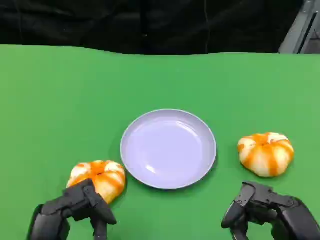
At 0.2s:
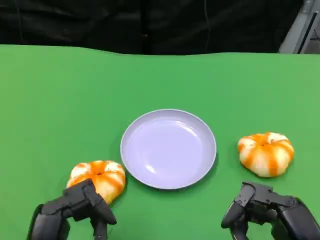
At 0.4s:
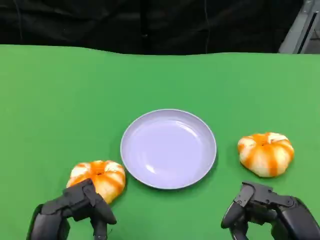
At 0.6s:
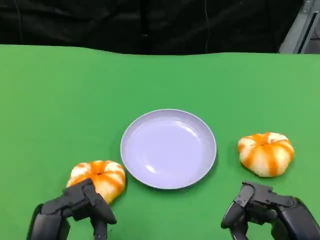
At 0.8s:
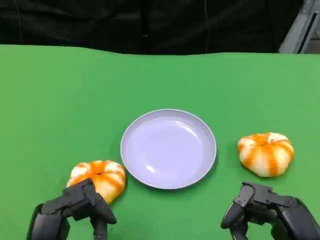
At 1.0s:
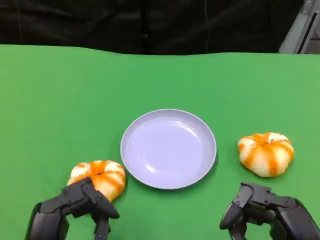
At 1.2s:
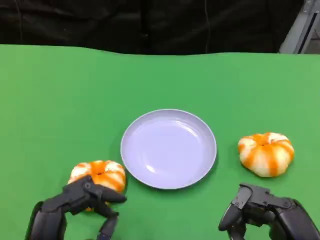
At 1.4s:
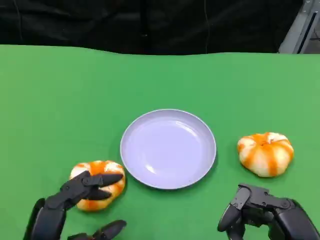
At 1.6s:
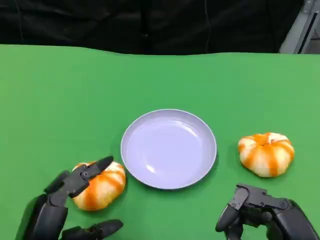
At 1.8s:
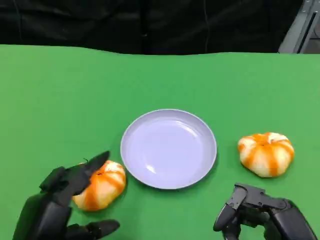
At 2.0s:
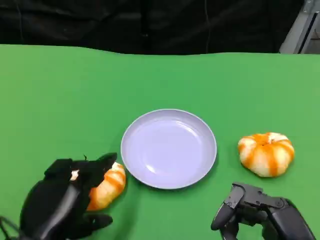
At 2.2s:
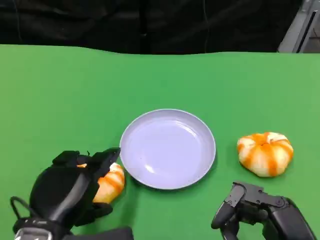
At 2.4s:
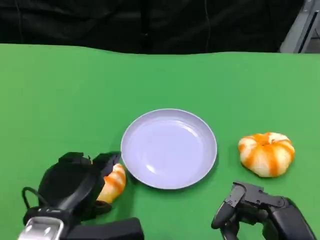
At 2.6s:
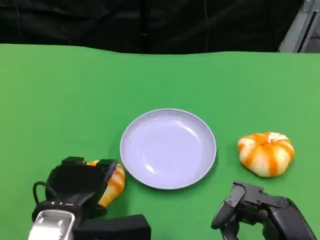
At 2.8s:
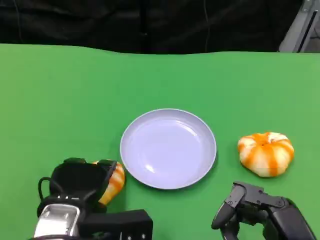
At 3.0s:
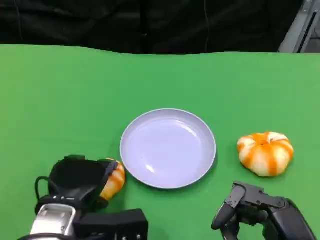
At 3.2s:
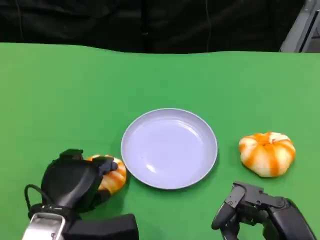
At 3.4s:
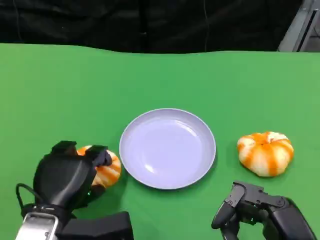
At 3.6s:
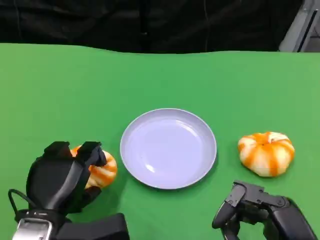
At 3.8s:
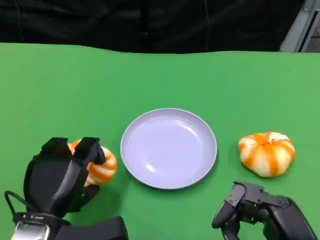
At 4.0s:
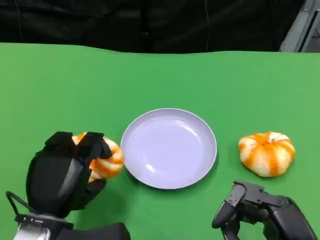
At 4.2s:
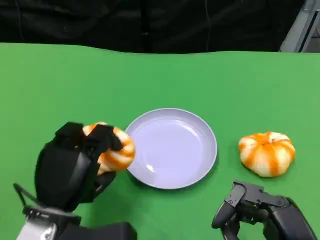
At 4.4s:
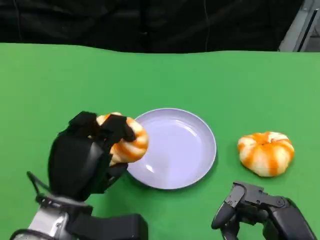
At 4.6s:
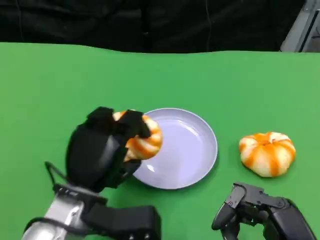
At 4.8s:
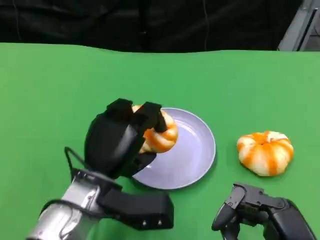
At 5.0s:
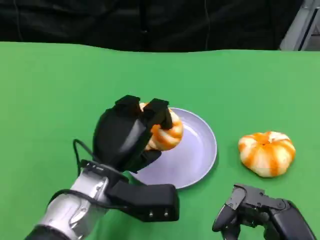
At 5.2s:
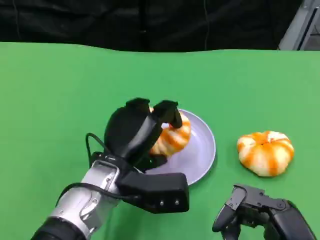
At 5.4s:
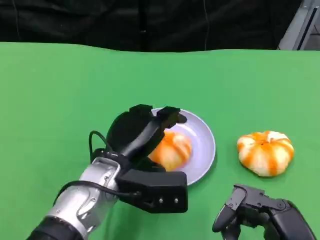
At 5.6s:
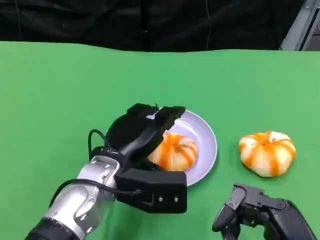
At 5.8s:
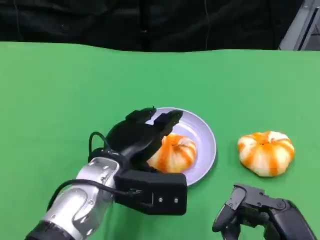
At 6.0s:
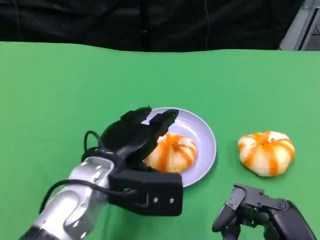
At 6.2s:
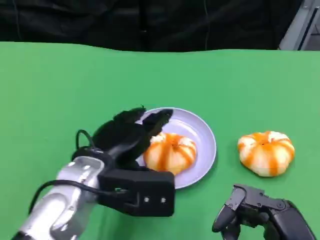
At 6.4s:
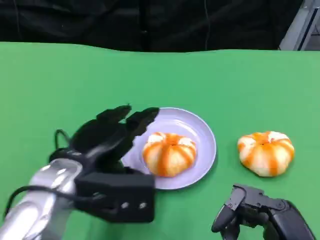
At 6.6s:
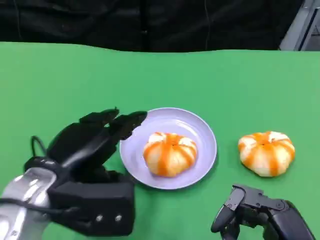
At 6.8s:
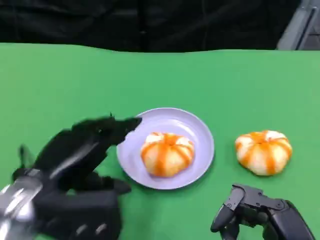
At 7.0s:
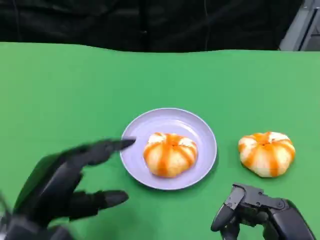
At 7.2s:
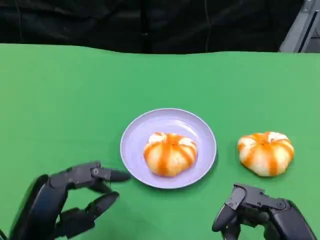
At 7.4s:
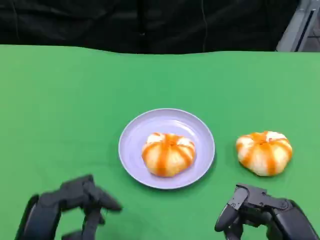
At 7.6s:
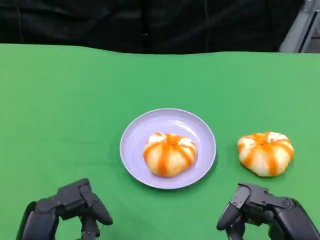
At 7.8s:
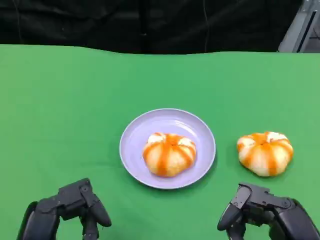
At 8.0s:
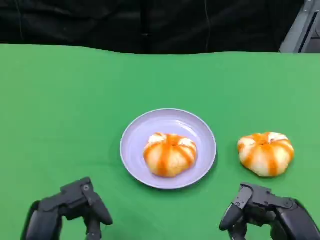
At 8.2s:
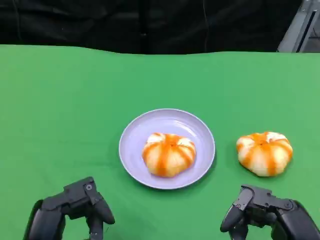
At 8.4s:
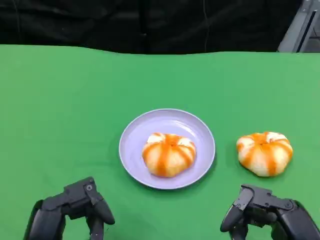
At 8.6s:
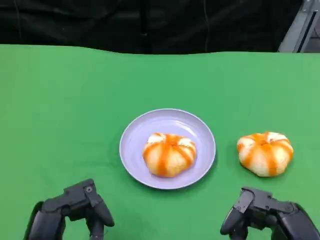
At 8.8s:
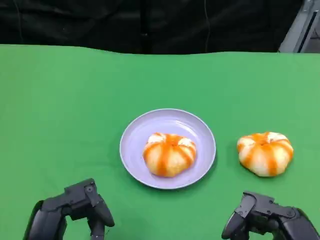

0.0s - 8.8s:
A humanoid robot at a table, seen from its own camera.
Task of the whole recording: Grasp the bread from the table and place it into the plate.
0.0s - 1.4s: There are only small adjustments of the hands.
1.4s - 3.0s: The left hand goes roughly 10 cm forward.
4.4s - 5.8s: The left hand heads to the right, covering roughly 5 cm.
5.8s - 7.4s: The left hand shifts some 20 cm backward and to the left.
7.4s - 8.8s: The hands make only small movements.
